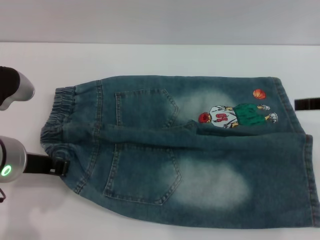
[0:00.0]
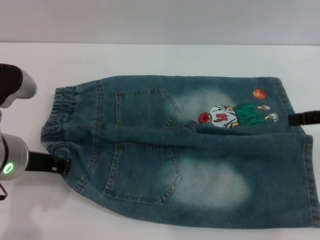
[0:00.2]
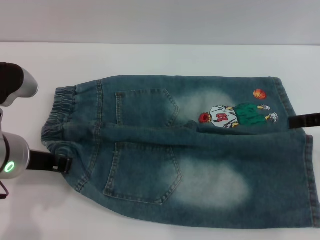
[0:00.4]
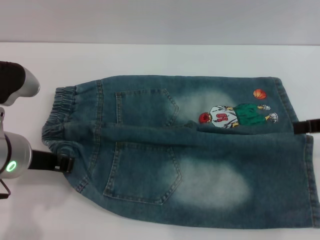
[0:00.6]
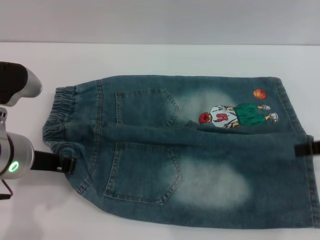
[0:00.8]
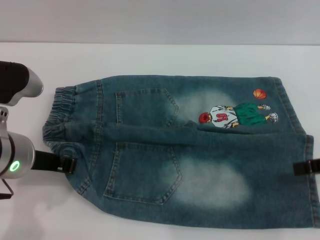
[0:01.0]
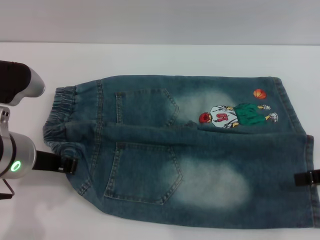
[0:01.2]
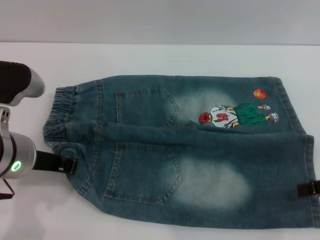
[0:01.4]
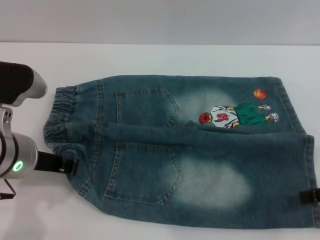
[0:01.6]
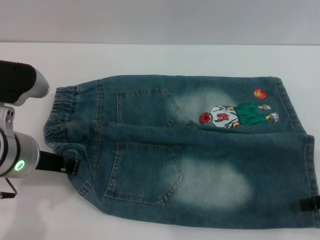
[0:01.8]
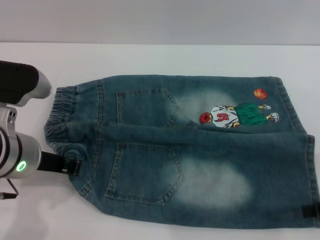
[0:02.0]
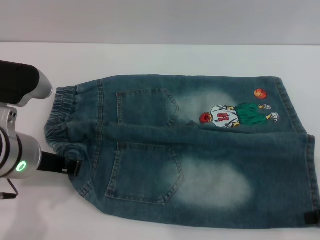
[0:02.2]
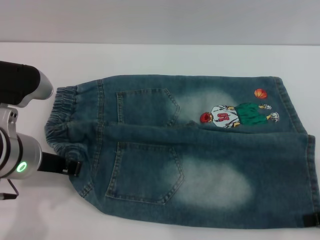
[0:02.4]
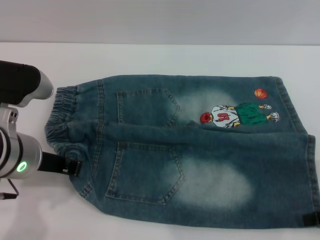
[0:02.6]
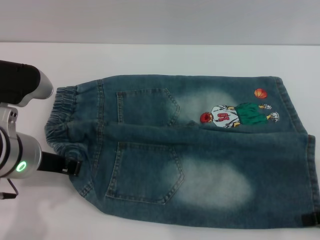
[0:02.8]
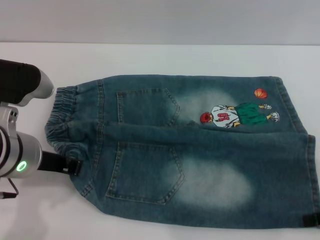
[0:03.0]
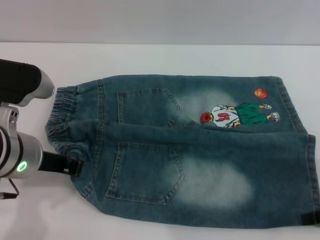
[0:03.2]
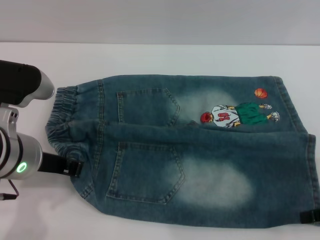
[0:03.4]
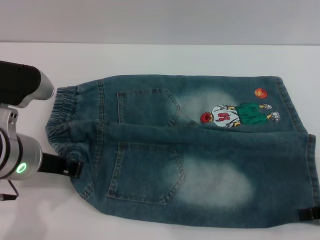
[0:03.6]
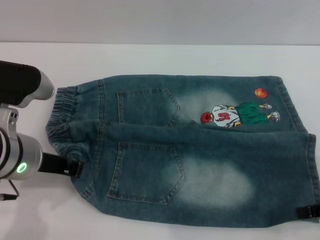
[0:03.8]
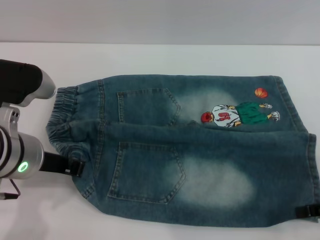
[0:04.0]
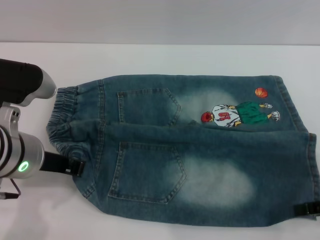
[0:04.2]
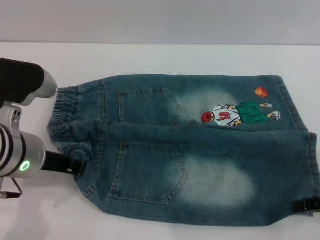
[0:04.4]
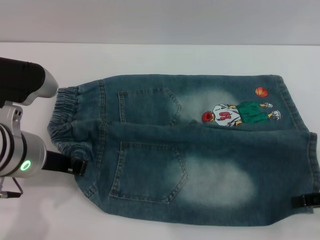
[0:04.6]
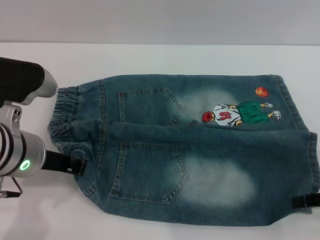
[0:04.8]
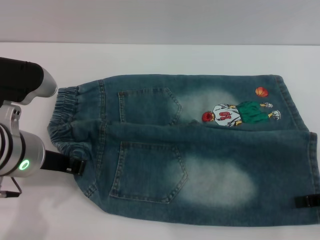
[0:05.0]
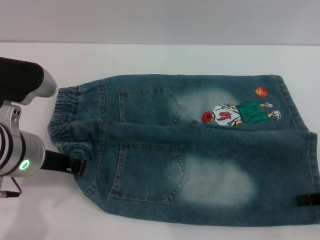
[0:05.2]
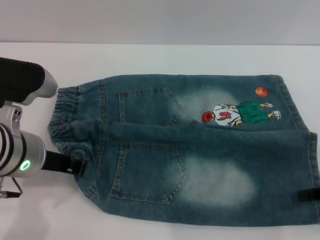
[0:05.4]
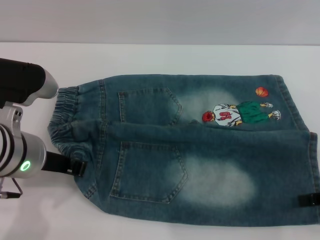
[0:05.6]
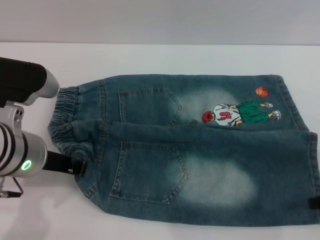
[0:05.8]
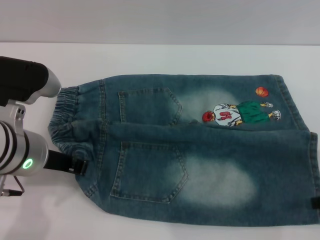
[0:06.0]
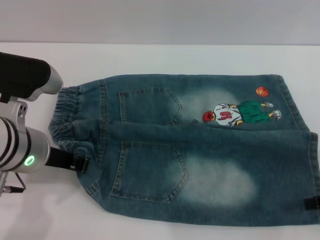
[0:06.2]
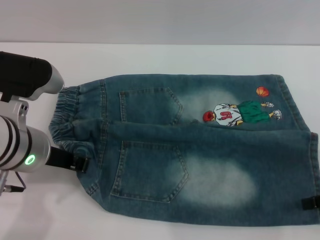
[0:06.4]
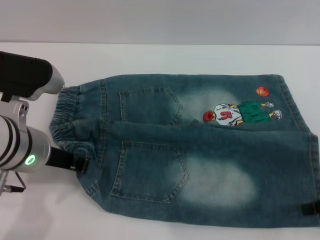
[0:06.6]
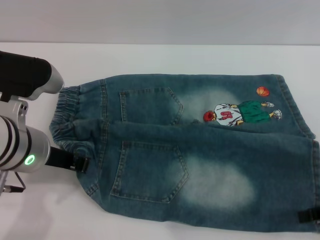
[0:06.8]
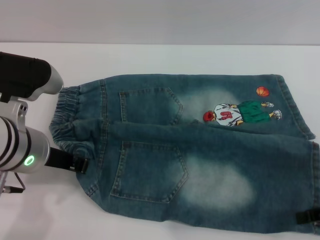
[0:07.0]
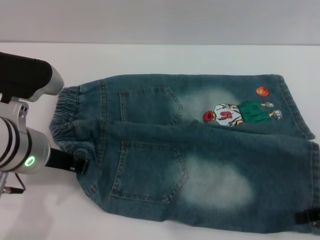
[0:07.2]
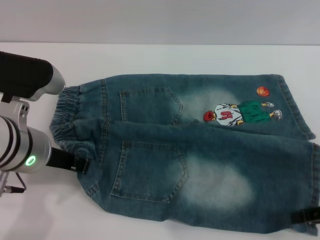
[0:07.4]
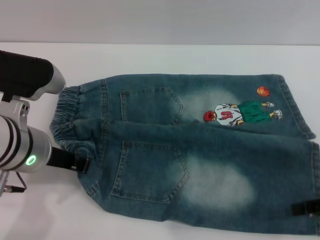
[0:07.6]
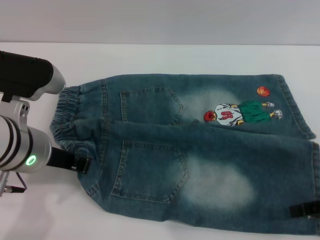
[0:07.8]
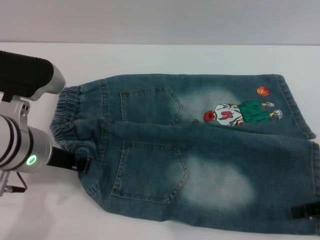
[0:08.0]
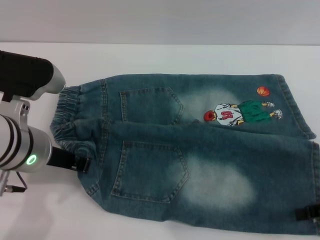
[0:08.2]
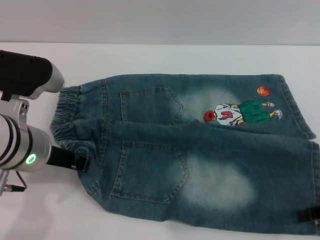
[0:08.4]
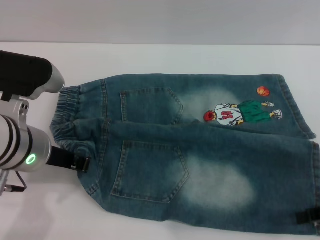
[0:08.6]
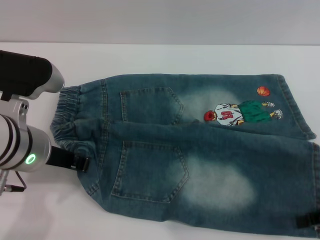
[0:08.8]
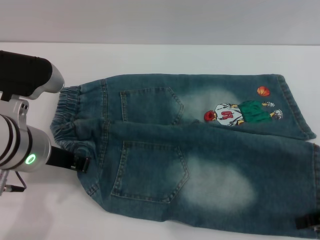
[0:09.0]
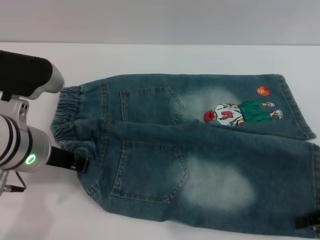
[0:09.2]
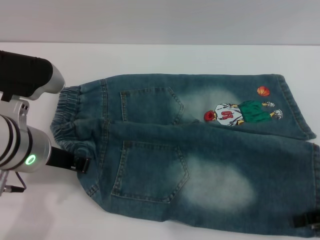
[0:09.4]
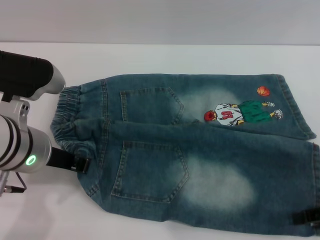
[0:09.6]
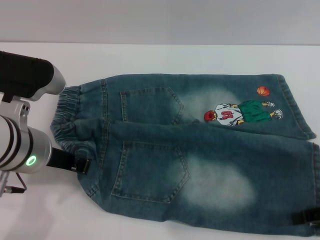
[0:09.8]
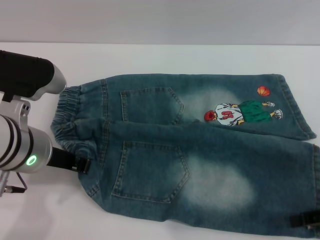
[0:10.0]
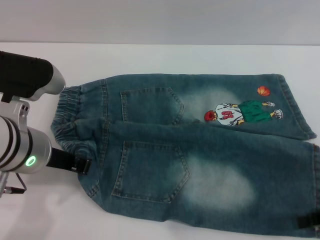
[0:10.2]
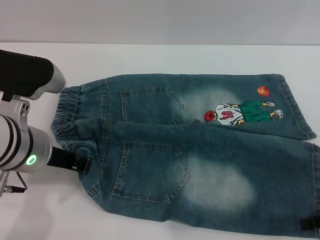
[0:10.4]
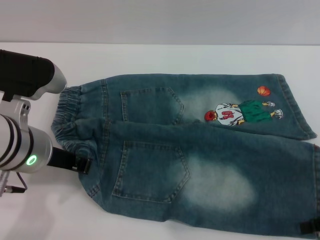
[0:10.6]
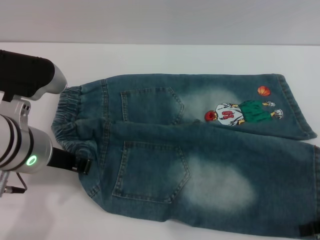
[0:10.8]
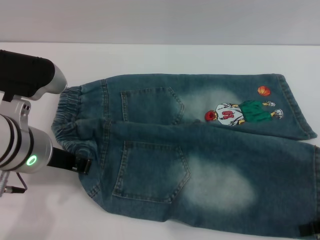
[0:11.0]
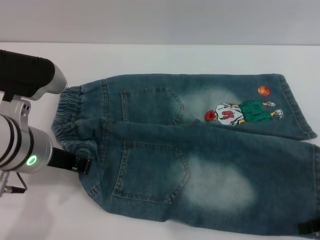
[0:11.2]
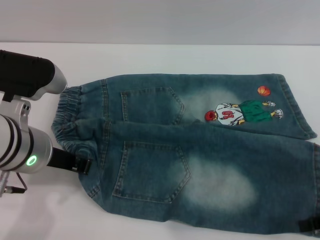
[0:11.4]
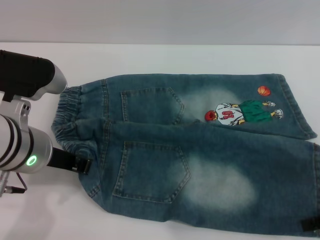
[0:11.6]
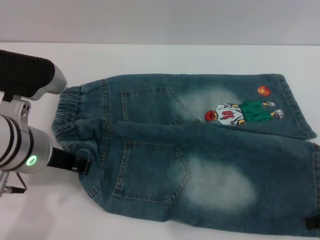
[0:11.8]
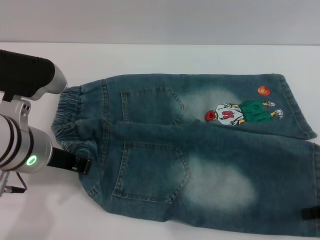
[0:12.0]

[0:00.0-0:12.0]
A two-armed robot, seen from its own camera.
0:00.0 to 0:01.6: The right gripper moves backward and downward, some 10 cm.
0:01.6 to 0:04.4: The grippers move only a little.
0:04.4 to 0:06.0: The right gripper closes.
0:06.0 to 0:09.0: The grippers move only a little.
0:09.0 to 0:10.4: Neither gripper changes place.

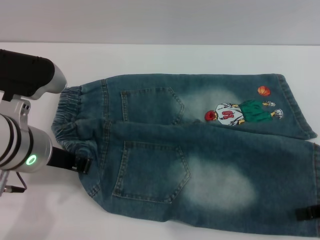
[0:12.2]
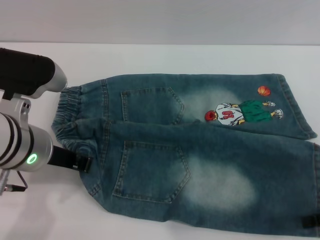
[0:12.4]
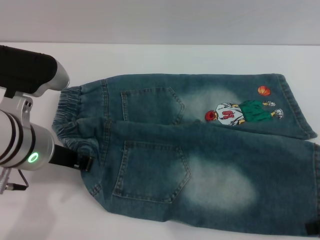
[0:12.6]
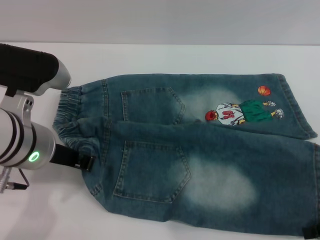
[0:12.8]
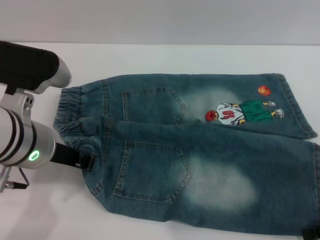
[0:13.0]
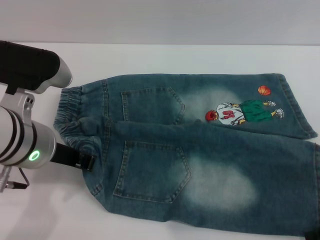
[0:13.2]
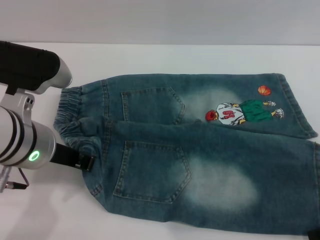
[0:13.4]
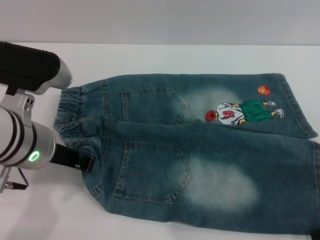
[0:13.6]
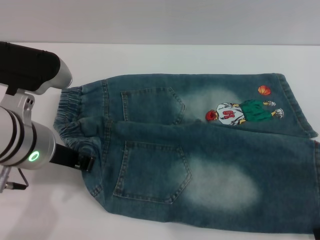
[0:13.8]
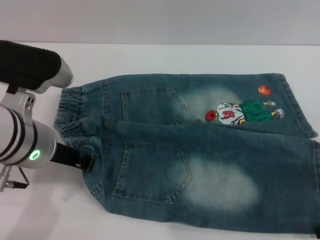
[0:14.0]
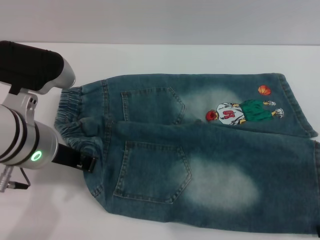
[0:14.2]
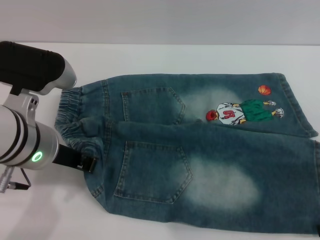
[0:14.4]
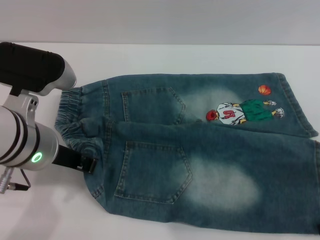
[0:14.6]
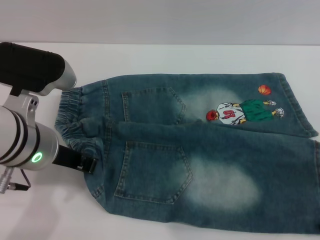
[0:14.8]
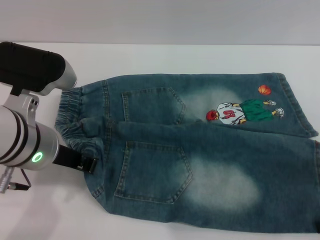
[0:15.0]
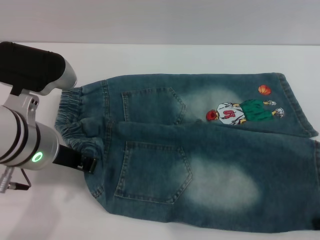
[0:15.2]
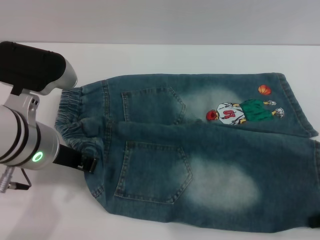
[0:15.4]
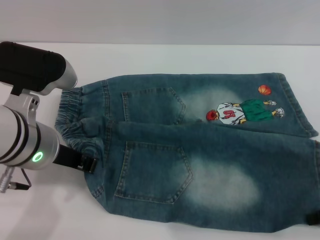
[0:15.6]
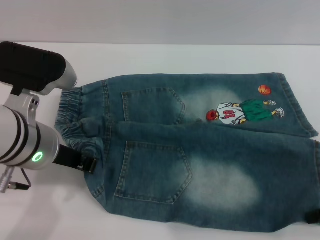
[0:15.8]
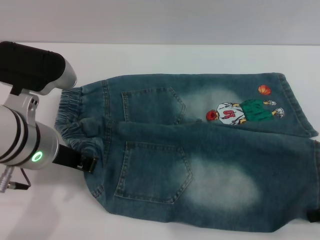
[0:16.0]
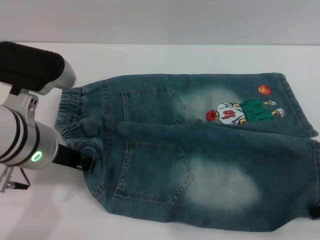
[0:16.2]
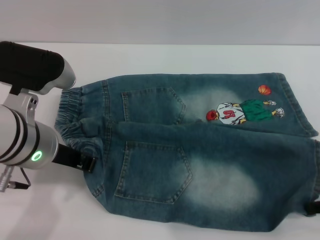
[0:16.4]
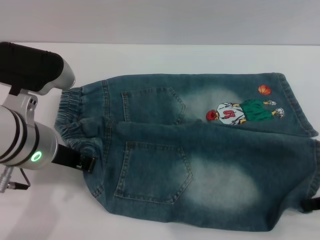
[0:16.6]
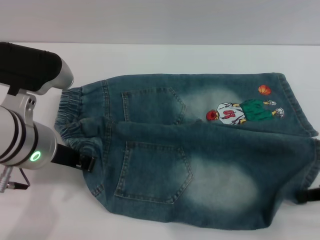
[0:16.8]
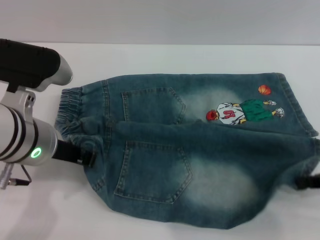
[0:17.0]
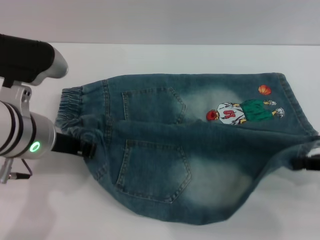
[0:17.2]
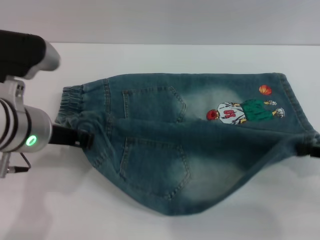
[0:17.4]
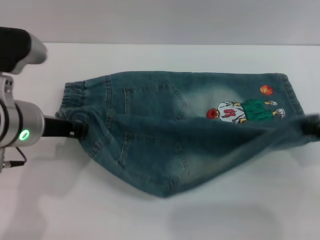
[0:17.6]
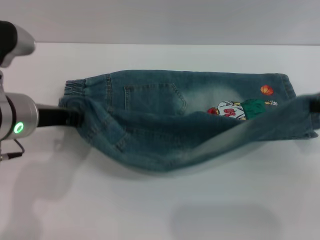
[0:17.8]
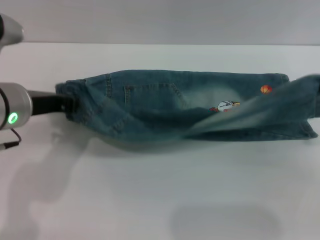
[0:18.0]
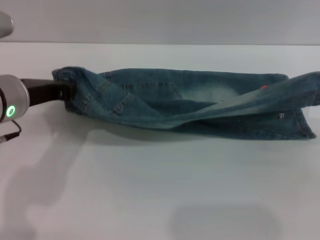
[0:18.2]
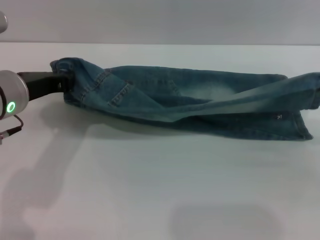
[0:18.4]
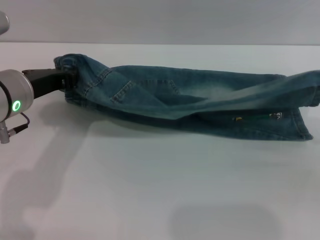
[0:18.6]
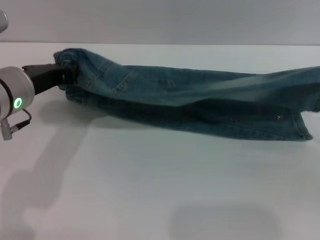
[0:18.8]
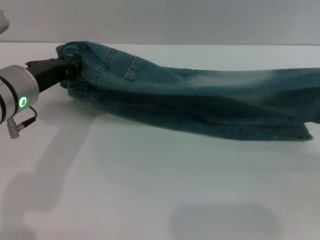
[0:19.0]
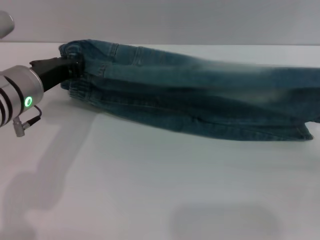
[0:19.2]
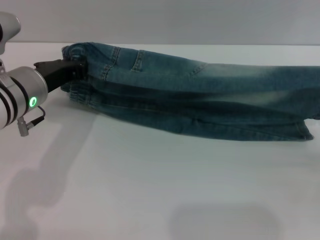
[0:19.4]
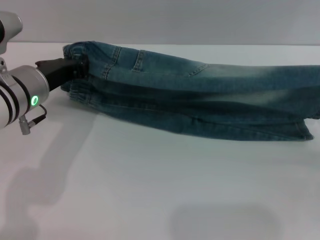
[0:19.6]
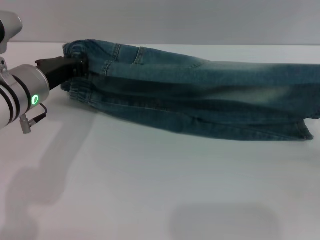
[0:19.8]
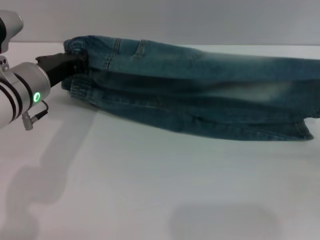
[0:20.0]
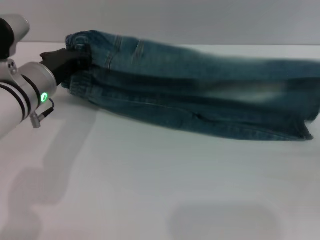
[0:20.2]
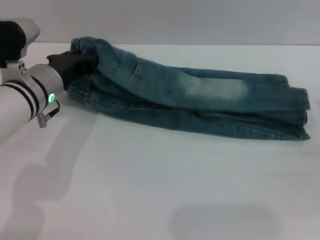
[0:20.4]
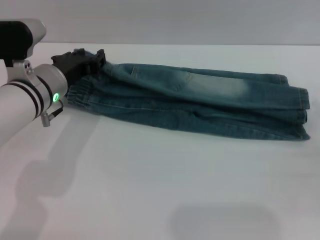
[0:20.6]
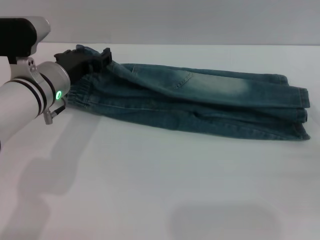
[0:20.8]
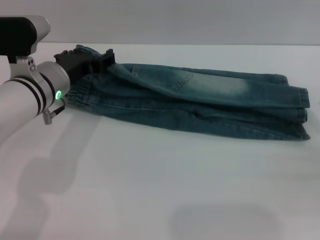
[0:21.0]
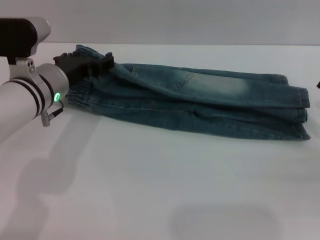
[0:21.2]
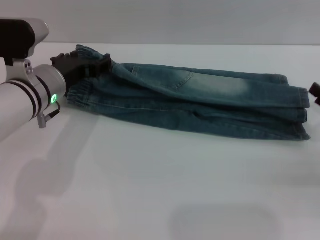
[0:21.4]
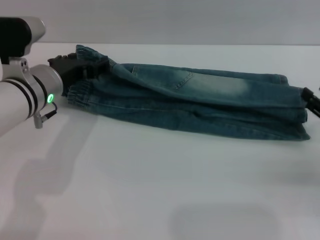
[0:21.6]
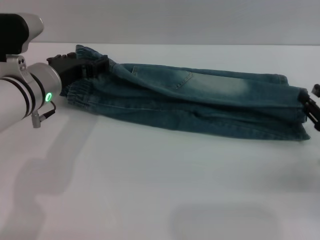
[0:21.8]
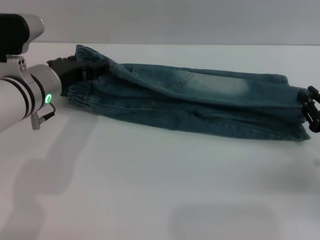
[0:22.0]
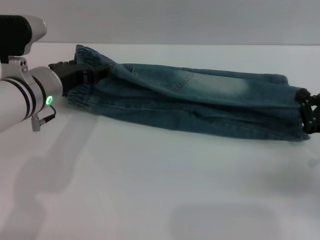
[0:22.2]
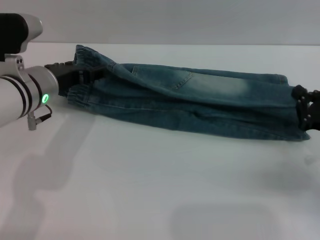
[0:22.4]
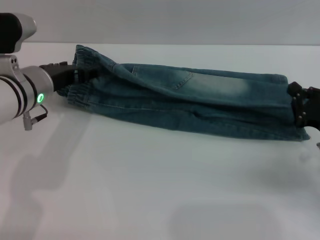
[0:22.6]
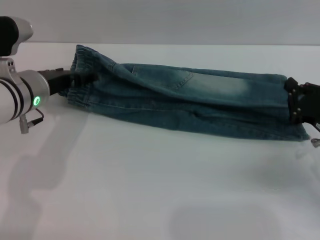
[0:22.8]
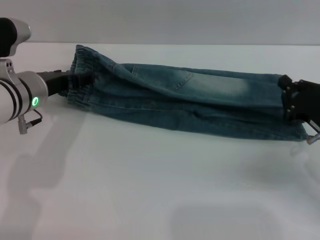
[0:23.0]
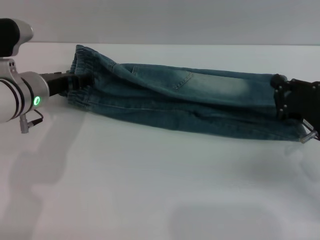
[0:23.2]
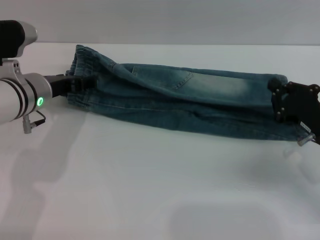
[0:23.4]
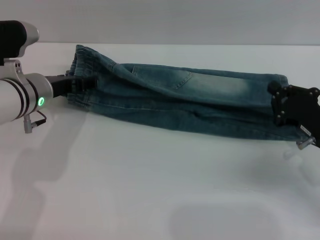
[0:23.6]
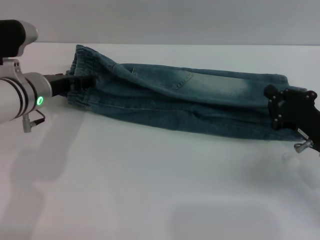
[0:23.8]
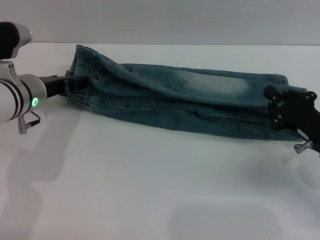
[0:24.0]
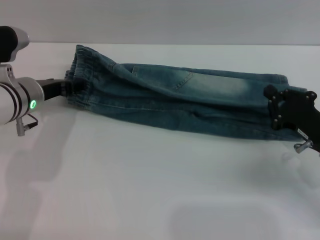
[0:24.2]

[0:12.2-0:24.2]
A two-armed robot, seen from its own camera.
0:12.2 to 0:13.8: The right gripper opens up.
0:13.8 to 0:15.2: Both grippers stay put.
0:15.2 to 0:16.6: The right gripper closes up.
0:16.6 to 0:18.2: The right gripper moves roughly 5 cm.
0:18.2 to 0:19.8: The right gripper travels downward by roughly 10 cm.
0:19.8 to 0:21.2: The left gripper opens up, while the right gripper opens its fingers.
0:21.2 to 0:22.6: The right gripper shifts roughly 5 cm to the left, and closes.
0:22.6 to 0:24.2: The grippers stay close to where they were, moving slightly.
